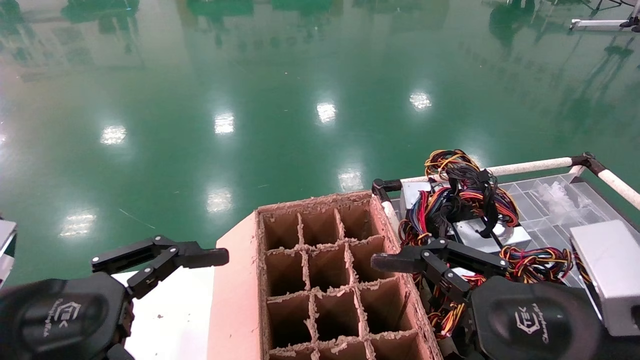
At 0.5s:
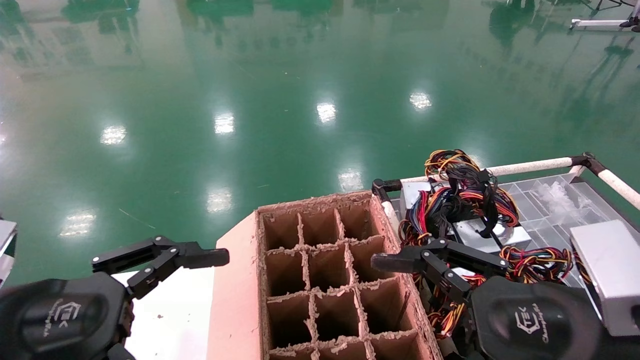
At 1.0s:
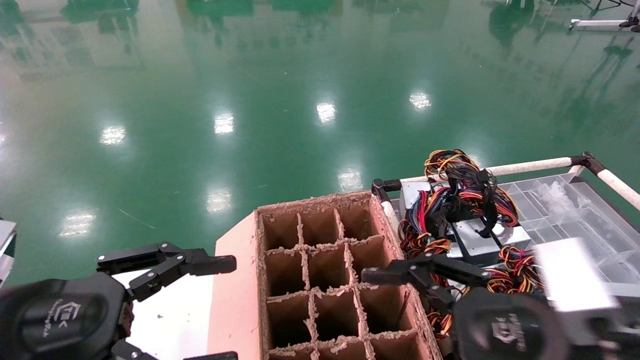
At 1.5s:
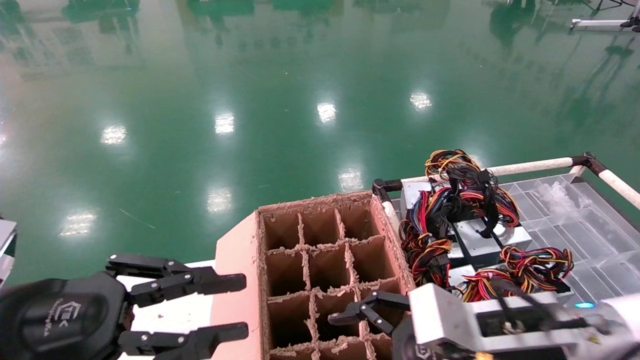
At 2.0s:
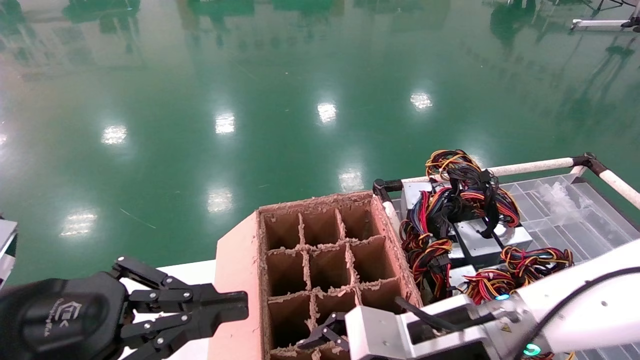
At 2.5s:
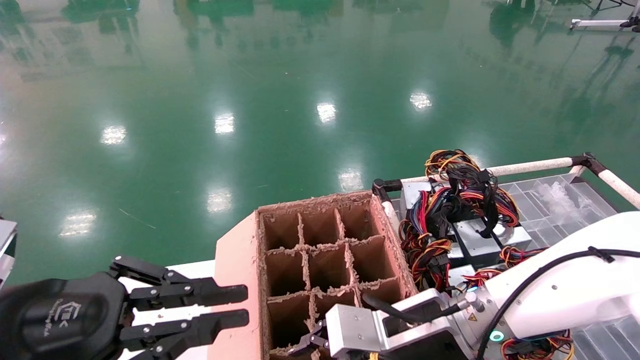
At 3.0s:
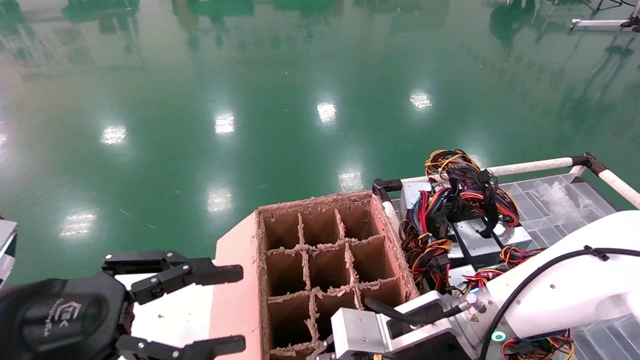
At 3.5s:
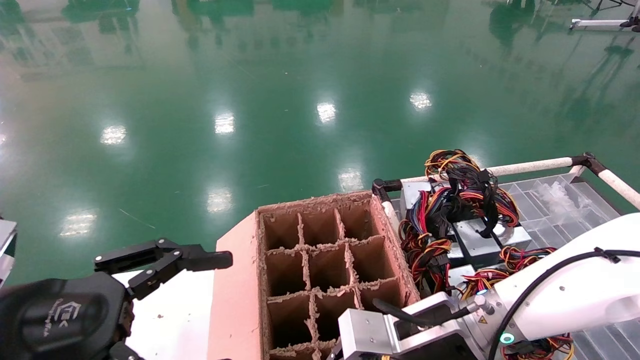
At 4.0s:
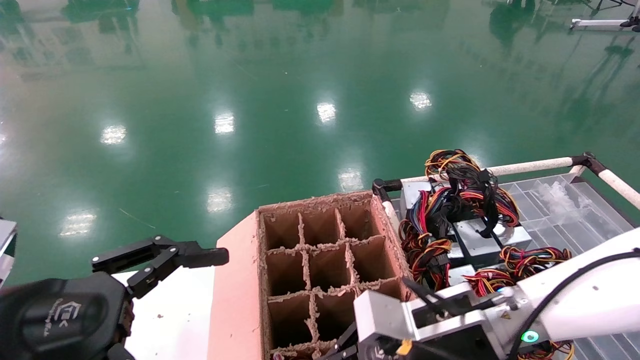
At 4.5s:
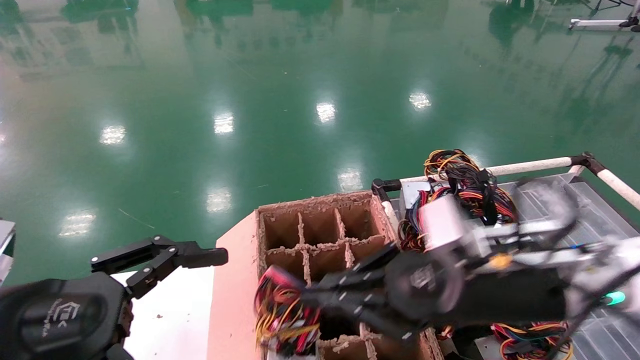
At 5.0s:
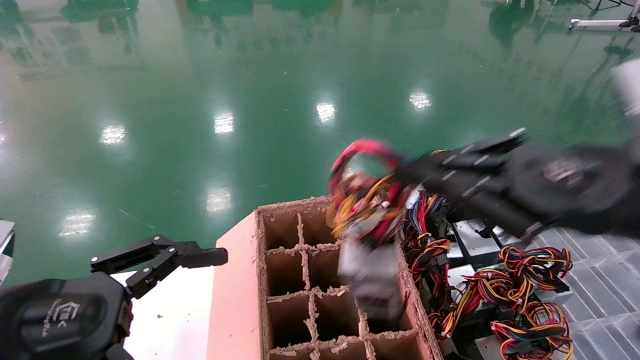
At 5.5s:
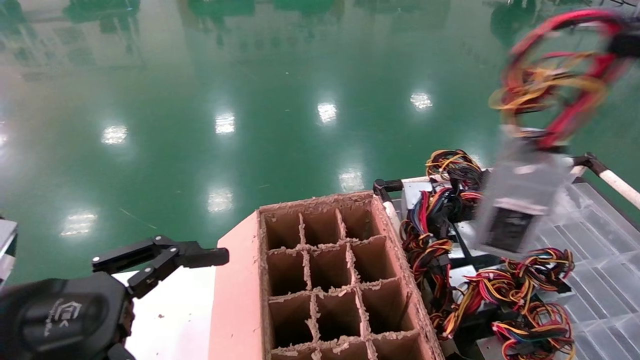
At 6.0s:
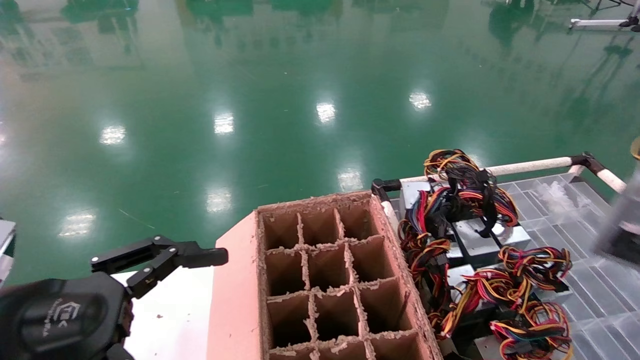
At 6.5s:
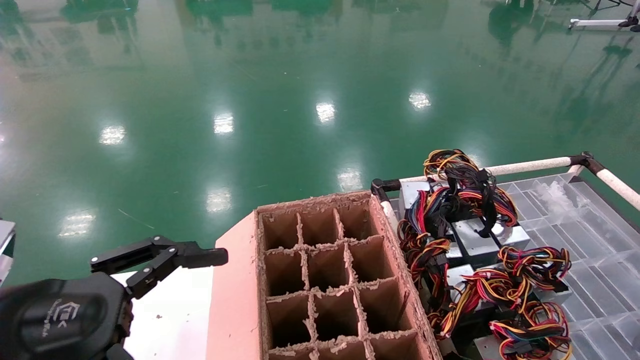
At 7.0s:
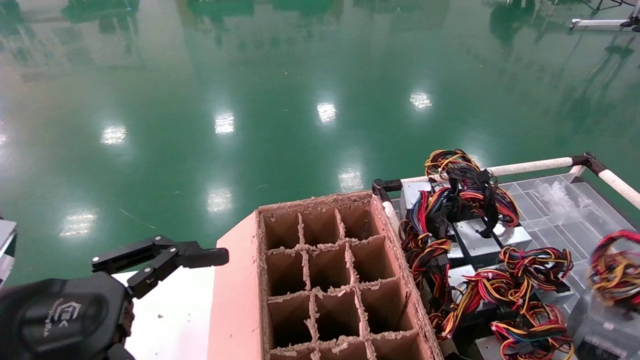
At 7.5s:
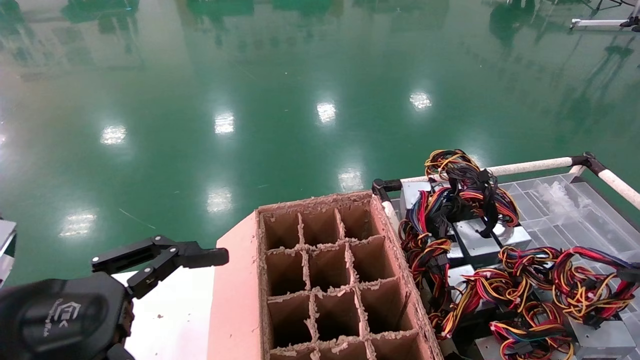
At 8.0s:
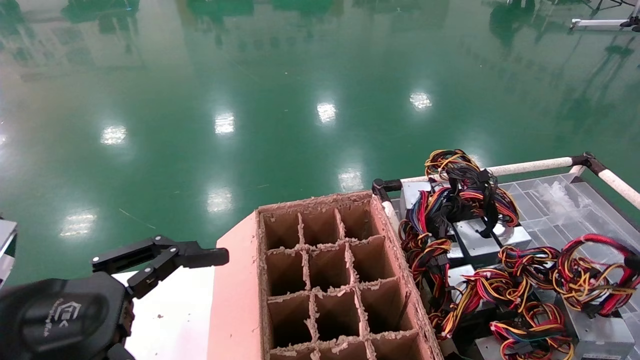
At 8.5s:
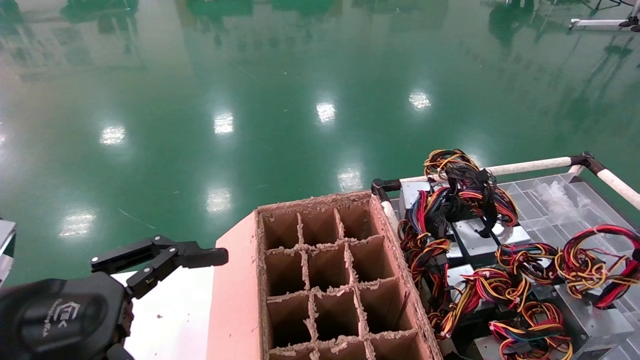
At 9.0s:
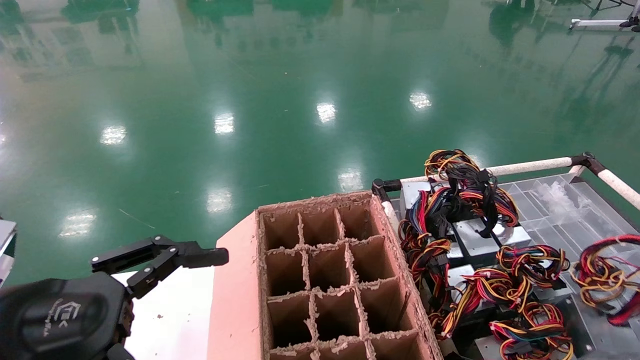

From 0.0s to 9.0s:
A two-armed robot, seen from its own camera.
Step, from 2.5s to 3.5s: Grab and lift the power supply from the large box.
From 0.0s to 2.0s: The left gripper closes up. Meanwhile the right gripper travels forward, to the left and downward by about 15 cm.
From 2.0s to 4.5s: The left gripper opens. Meanwhile the right gripper moves upward and to the right, approximately 10 cm, and closes its fingers.
From 4.5s to 7.0s: The right gripper shifts roughly 35 cm to the right and backward.
From 7.0s to 9.0s: The right gripper travels downward by approximately 20 cm.

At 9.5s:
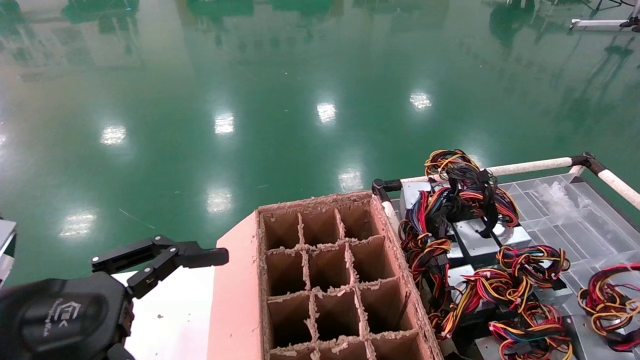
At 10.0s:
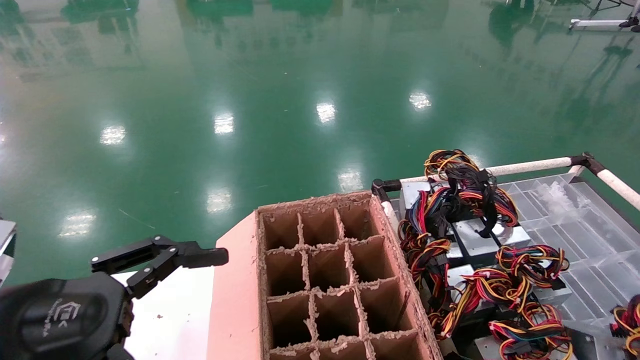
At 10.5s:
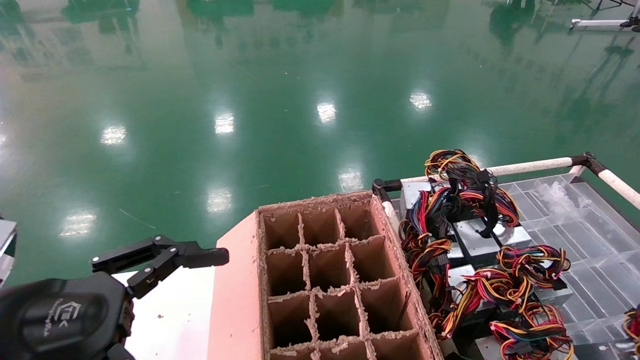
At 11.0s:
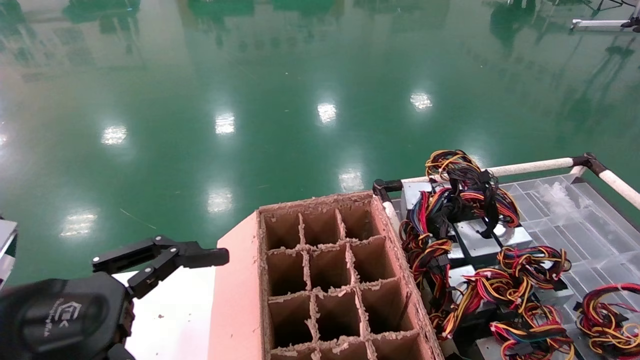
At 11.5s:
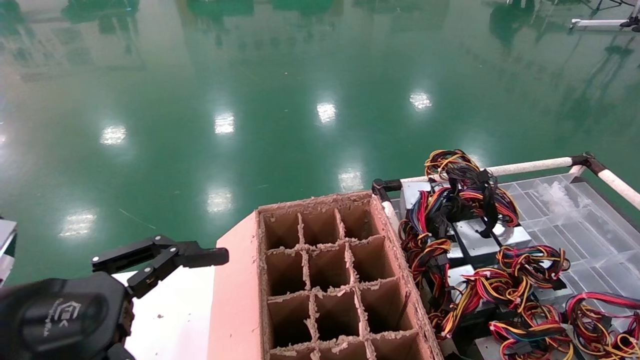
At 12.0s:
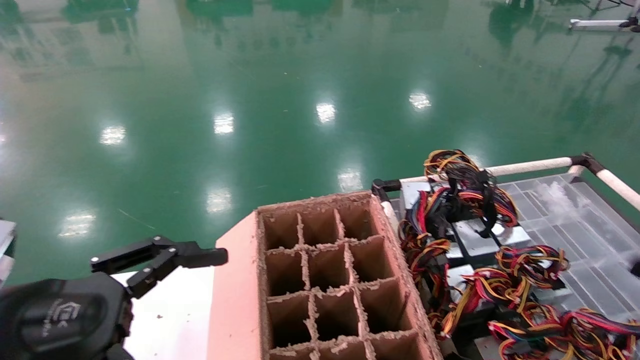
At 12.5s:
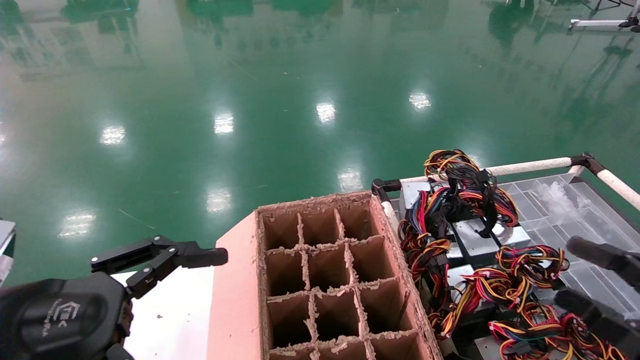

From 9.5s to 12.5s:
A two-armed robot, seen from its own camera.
From 9.5s to 11.0s: The grippers stay close to where they were, moving slightly.
From 11.0s to 12.5s: The right gripper shifts some 15 cm to the left and upward, and opens.
